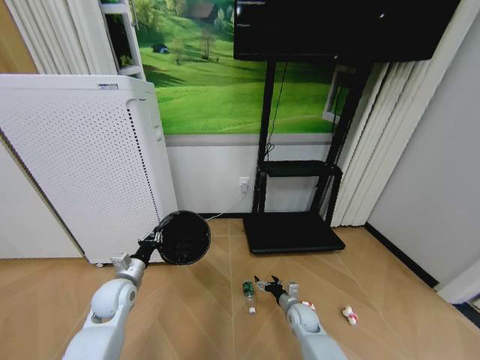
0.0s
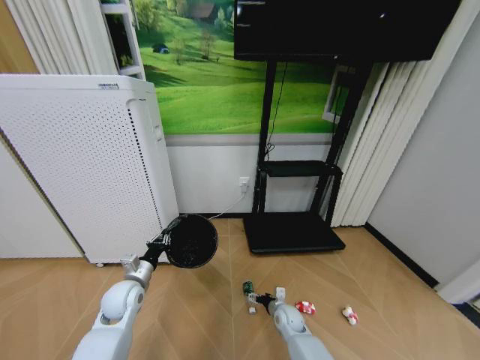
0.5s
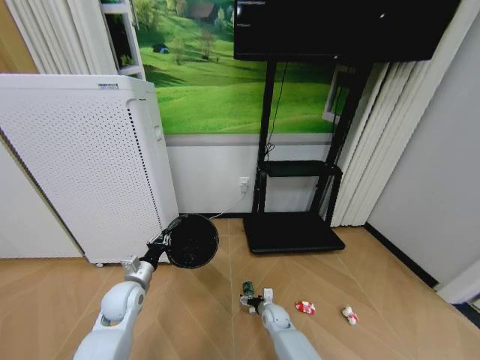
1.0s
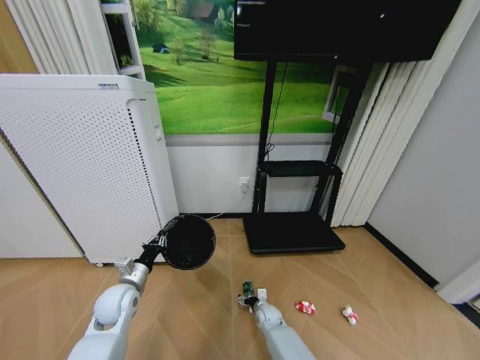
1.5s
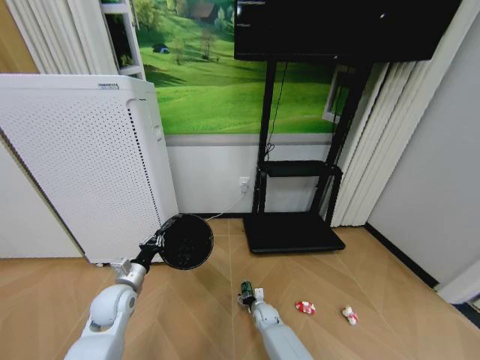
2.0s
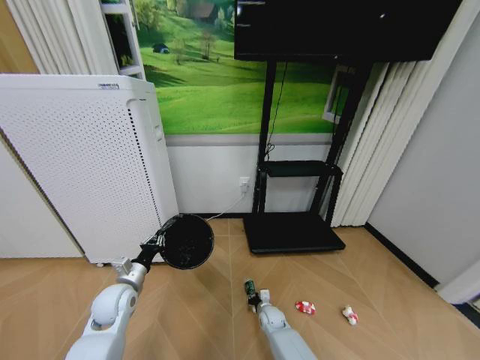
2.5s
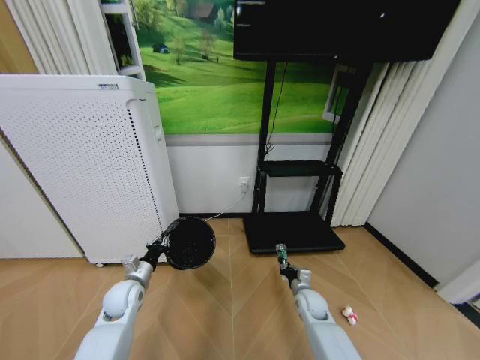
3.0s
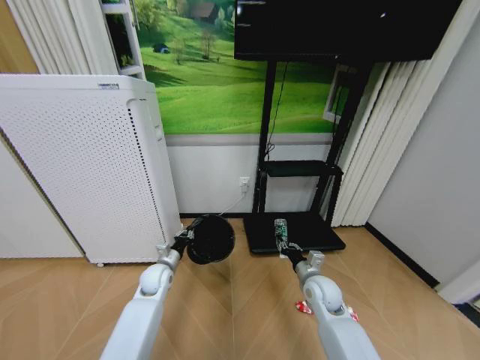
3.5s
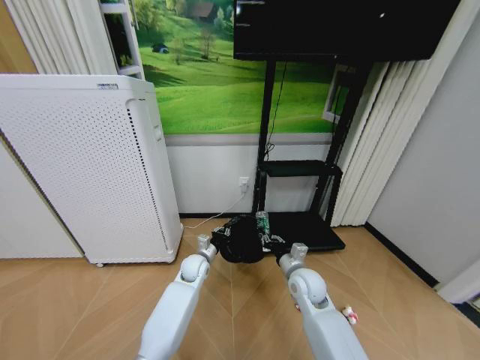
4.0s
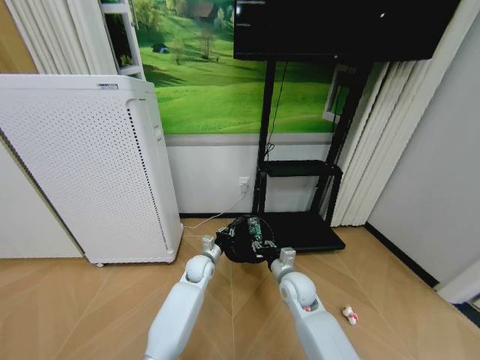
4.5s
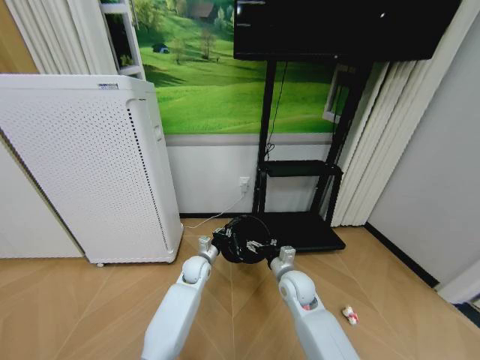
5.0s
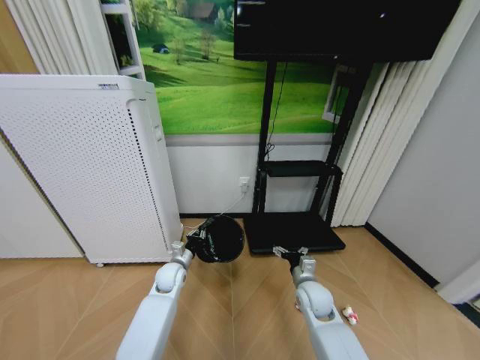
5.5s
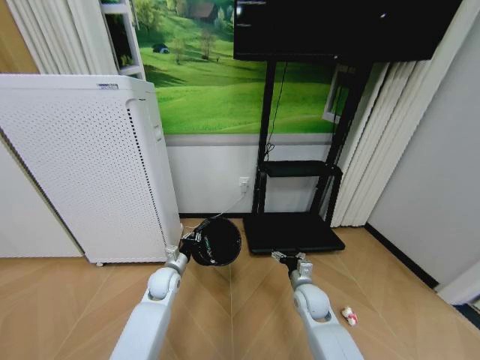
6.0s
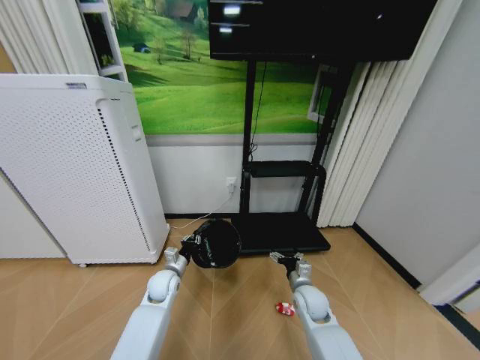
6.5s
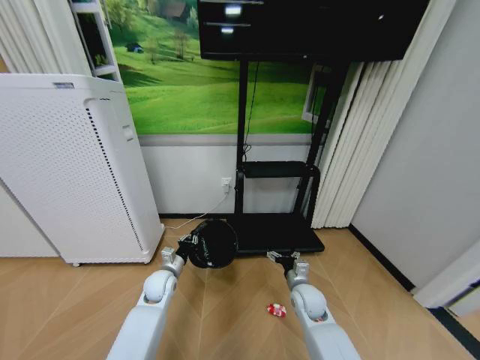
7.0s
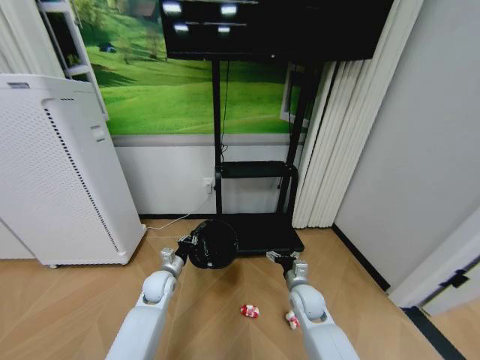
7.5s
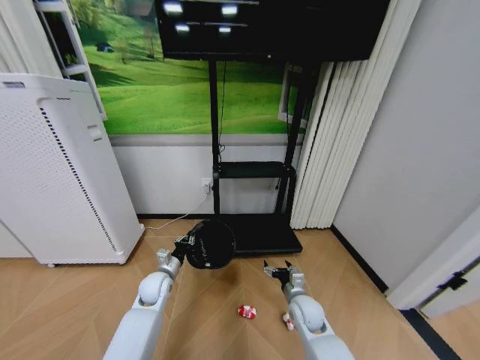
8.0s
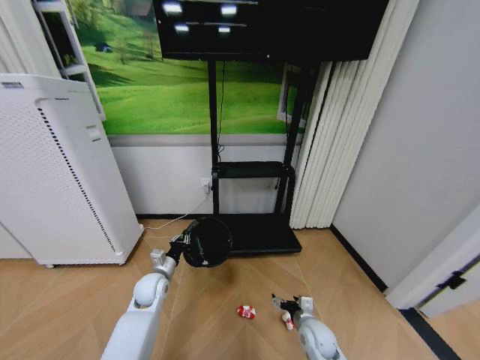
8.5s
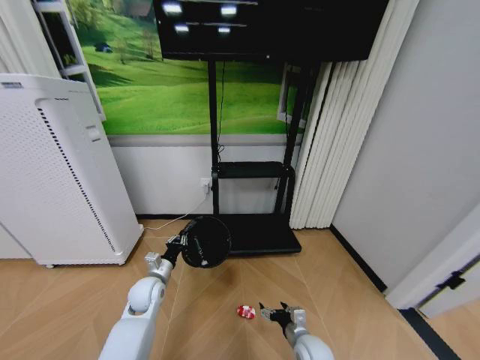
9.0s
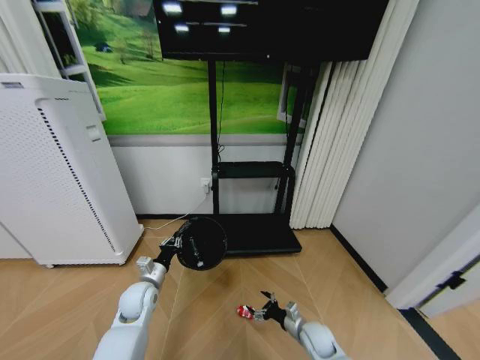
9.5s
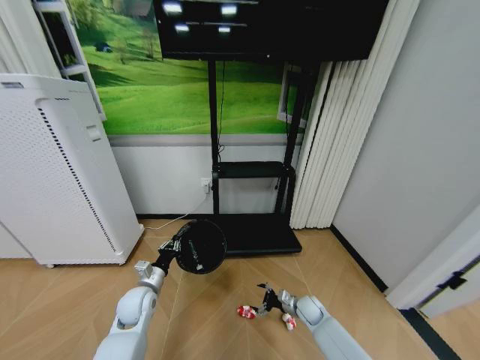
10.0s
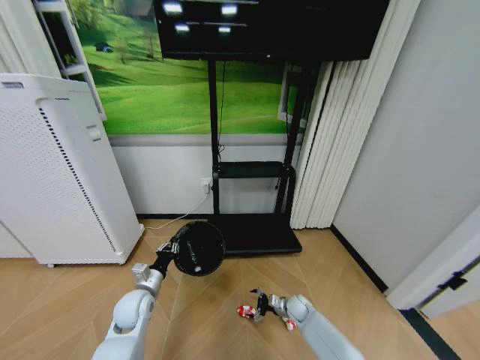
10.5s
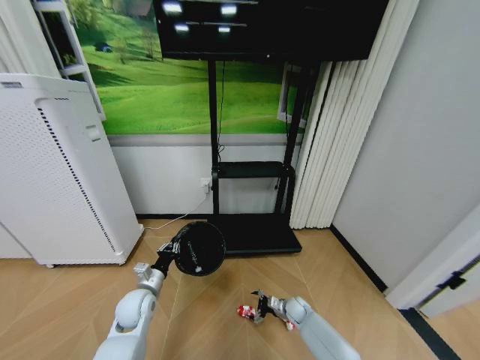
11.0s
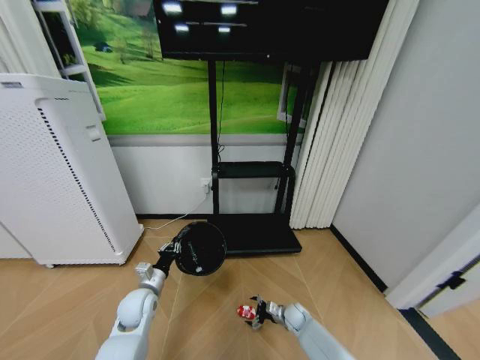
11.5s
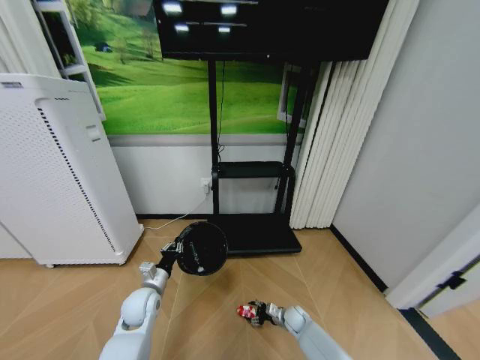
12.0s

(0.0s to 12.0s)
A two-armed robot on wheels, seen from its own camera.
Task of the whole recording: Pick up the trash bin and place the garbage on the floor into it.
0.0s - 2.0s: The right gripper goes some 15 cm to the left and downward.
2.0s - 4.0s: The right gripper is displaced upward by approximately 30 cm, and closes its fingers, while the left gripper is displaced to the right and forward by some 25 cm.
4.0s - 6.0s: The left gripper shifts about 10 cm to the left and backward. The right gripper is displaced downward by roughly 5 cm, and opens its fingers.
8.0s - 10.0s: The left gripper goes approximately 5 cm backward. Meanwhile the right gripper is displaced downward and to the right by approximately 15 cm, and goes backward and returns, about 10 cm each way.
10.0s - 12.0s: The right gripper heads downward, covering about 10 cm, and closes.

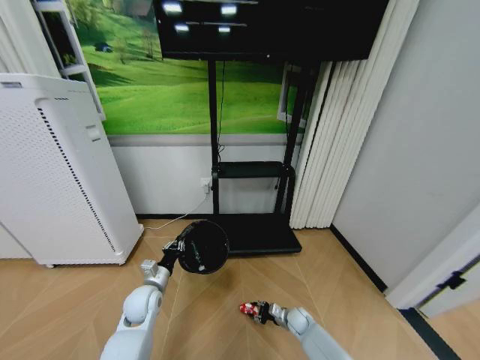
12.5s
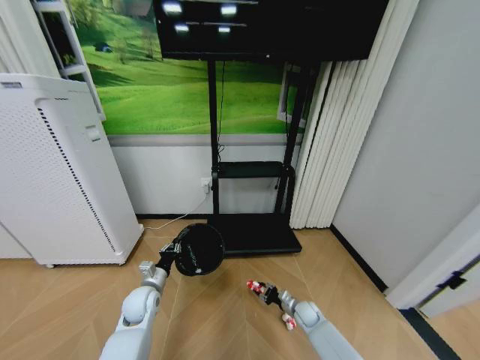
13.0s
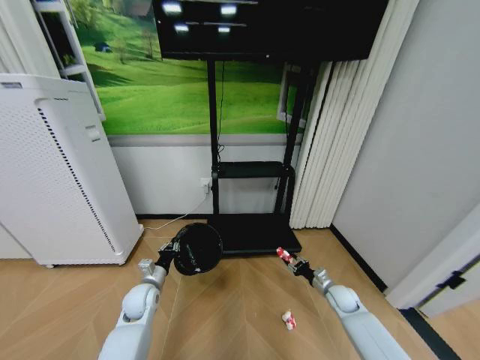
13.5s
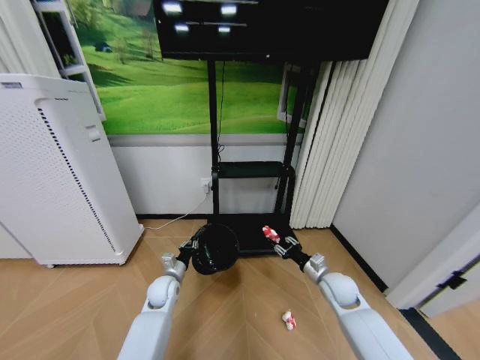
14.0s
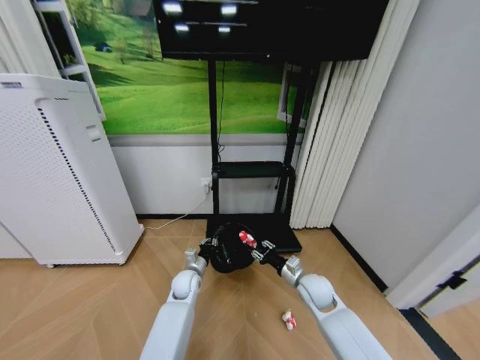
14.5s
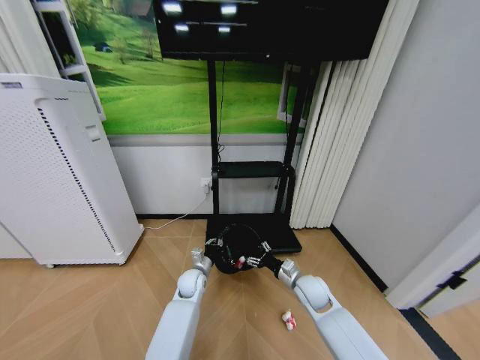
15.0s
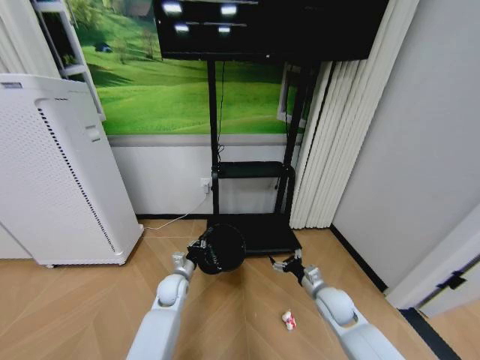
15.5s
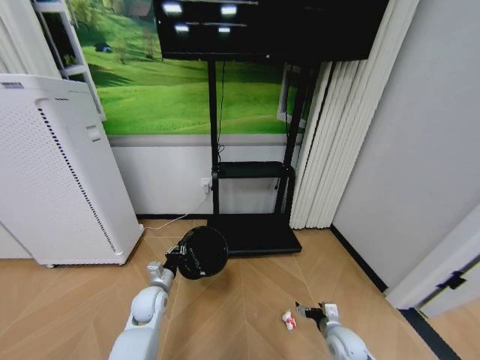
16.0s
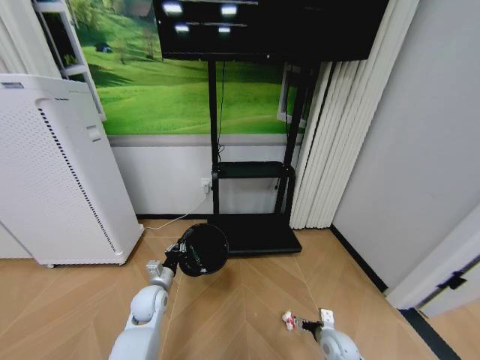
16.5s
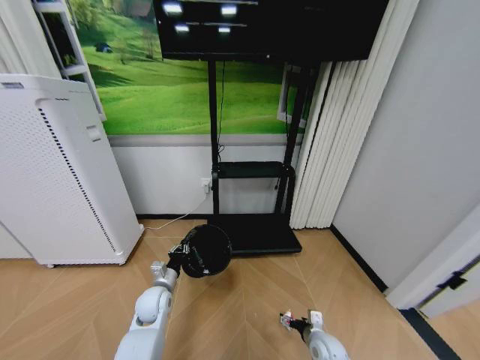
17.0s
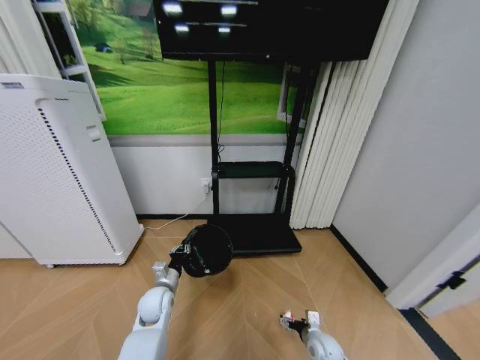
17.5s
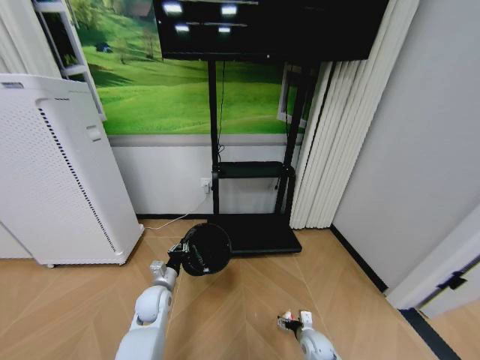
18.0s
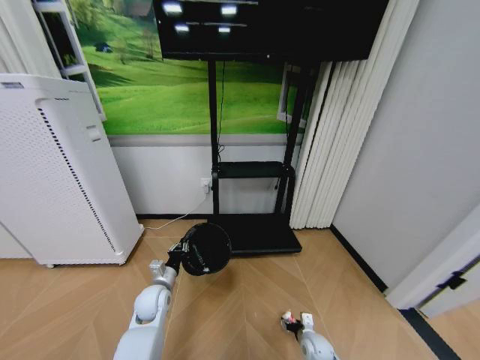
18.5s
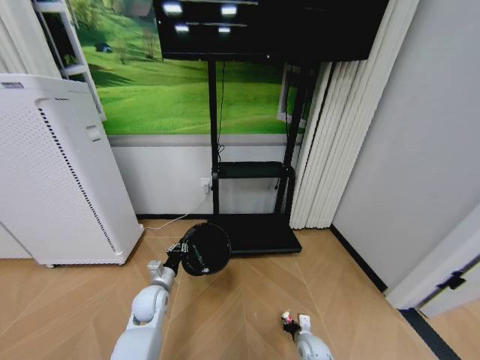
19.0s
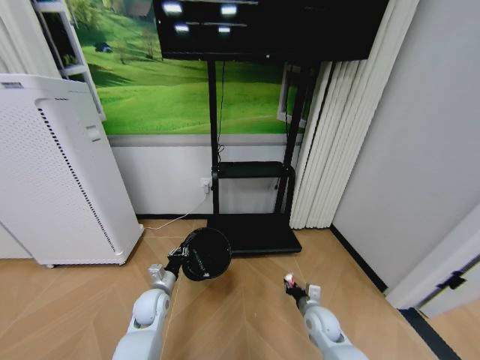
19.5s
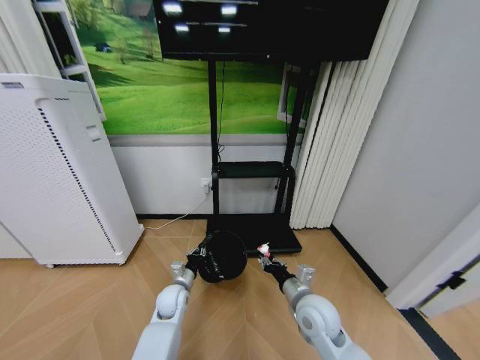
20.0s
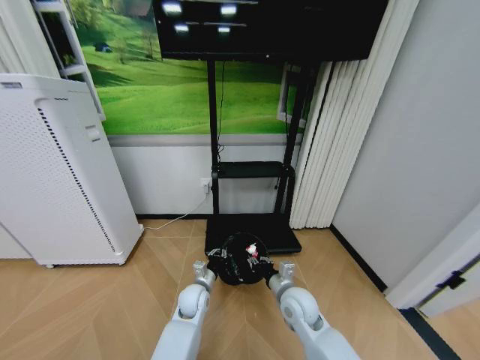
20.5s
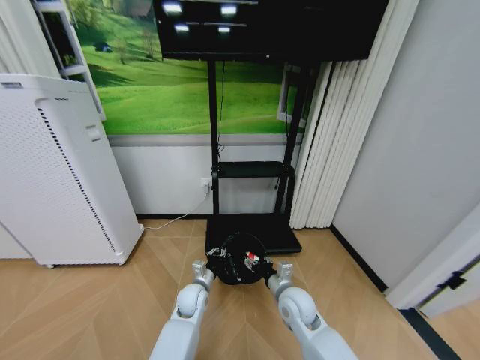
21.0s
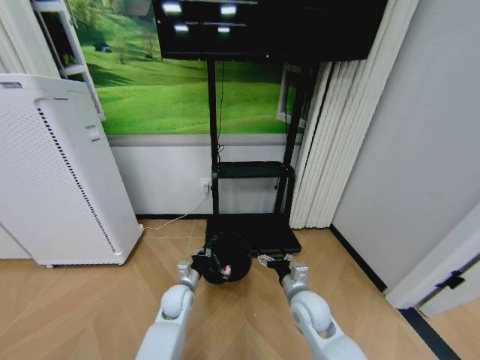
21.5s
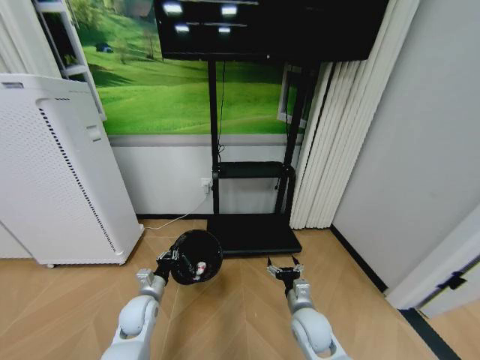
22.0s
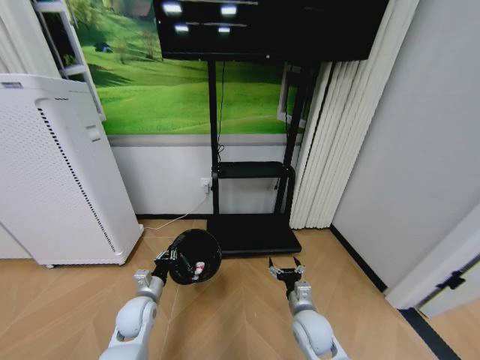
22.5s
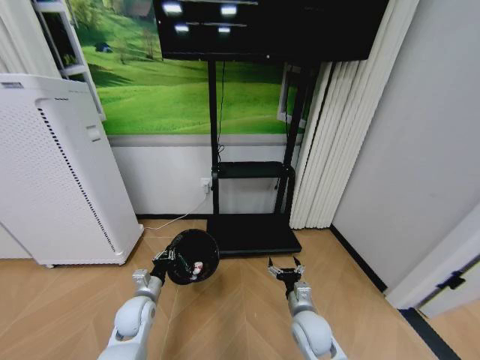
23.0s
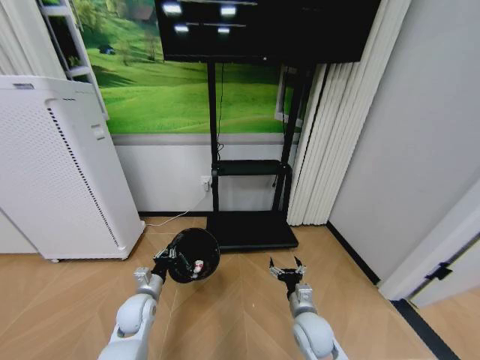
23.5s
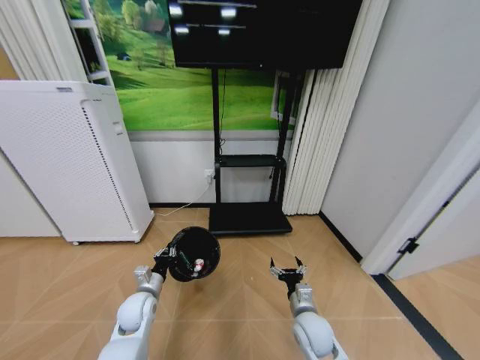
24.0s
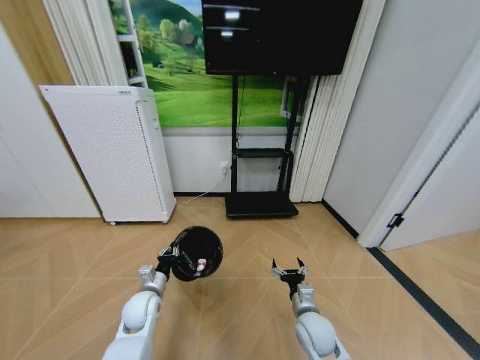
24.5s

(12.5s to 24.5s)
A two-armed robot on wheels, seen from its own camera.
Task of the whole recording: Pick up the trash bin and place the garbage on the floor into it.
12.5s - 14.5s: The left gripper shifts approximately 15 cm to the right and forward. Meanwhile the right gripper heads upward, covering approximately 25 cm.
14.5s - 16.5s: The left gripper travels to the left and backward by about 10 cm; the right gripper heads downward, backward and to the right, covering roughly 20 cm, and opens its fingers.
16.5s - 18.5s: The right gripper is displaced downward by roughly 10 cm.
18.5s - 20.5s: The left gripper is displaced to the right by approximately 10 cm; the right gripper heads upward and to the left, covering some 25 cm, and closes its fingers.
20.5s - 22.5s: The left gripper goes approximately 15 cm to the left; the right gripper changes place by about 5 cm, and opens.

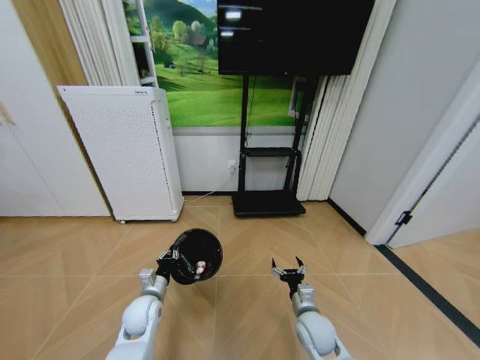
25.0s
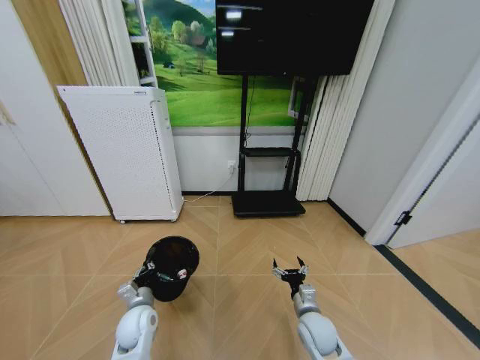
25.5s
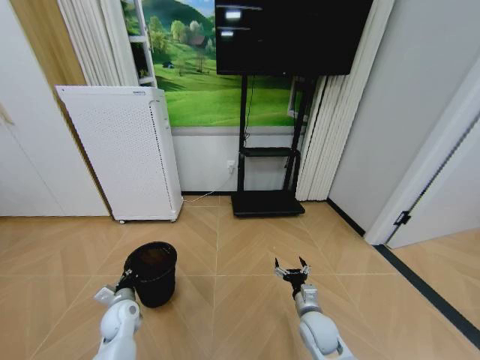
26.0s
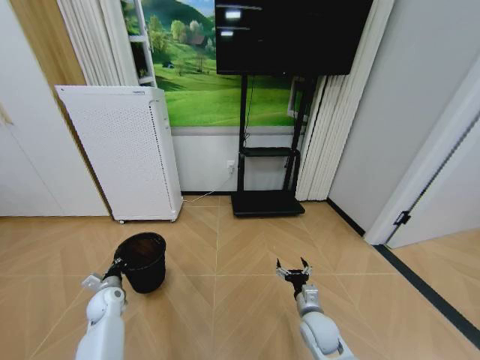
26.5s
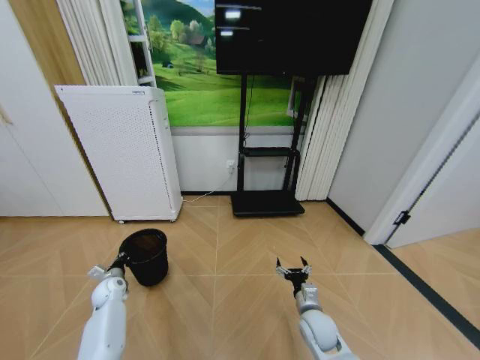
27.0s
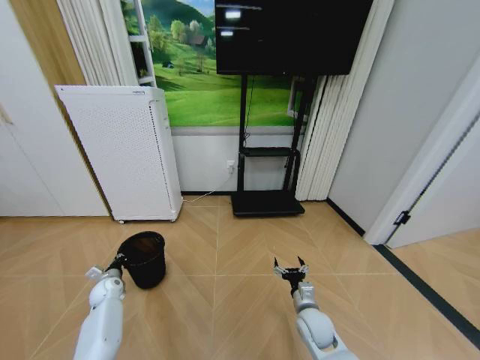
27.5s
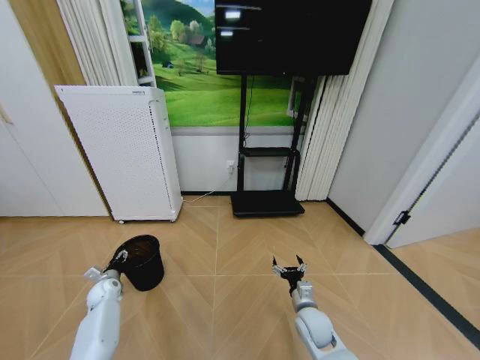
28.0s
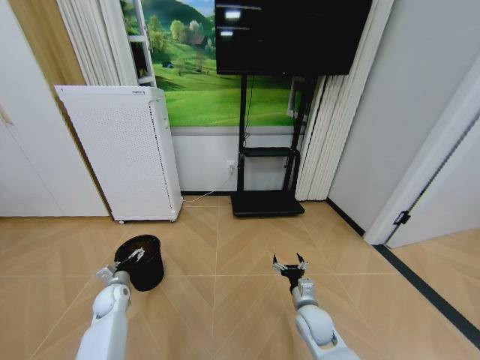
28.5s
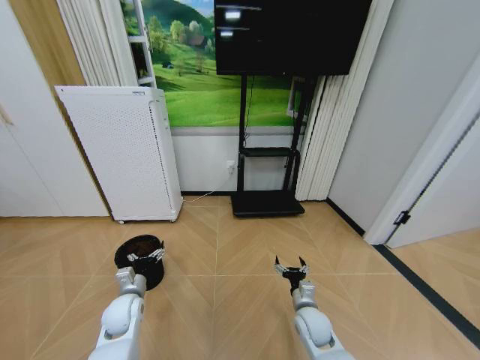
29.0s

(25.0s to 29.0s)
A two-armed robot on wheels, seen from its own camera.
Task of the whole recording: Pick up the trash bin and place the garbage on the floor into it.
25.0s - 27.0s: The left gripper is displaced to the left and forward by approximately 20 cm.
27.0s - 29.0s: The left gripper travels to the right, backward and upward by approximately 15 cm, and opens.
